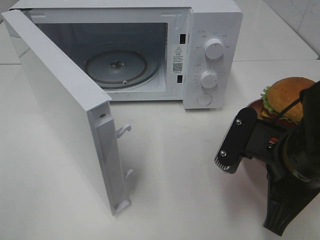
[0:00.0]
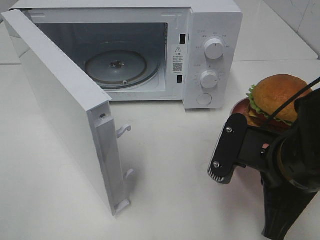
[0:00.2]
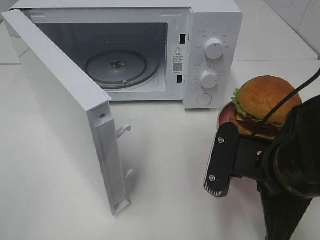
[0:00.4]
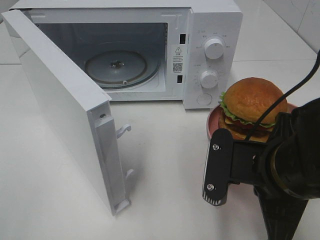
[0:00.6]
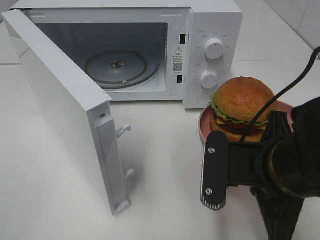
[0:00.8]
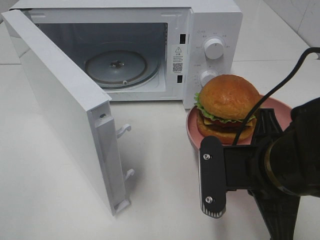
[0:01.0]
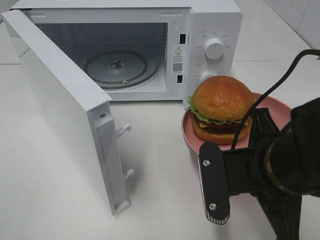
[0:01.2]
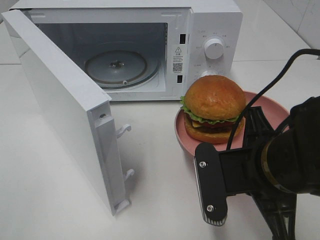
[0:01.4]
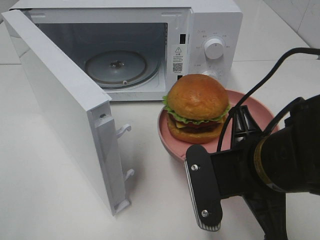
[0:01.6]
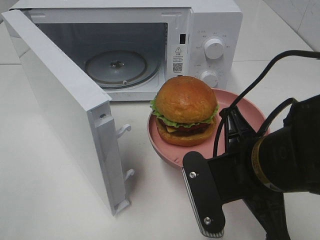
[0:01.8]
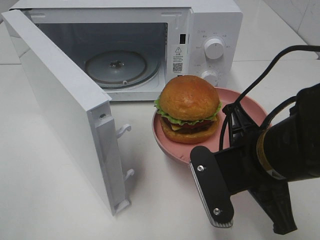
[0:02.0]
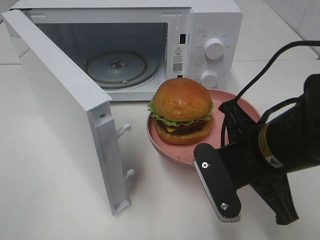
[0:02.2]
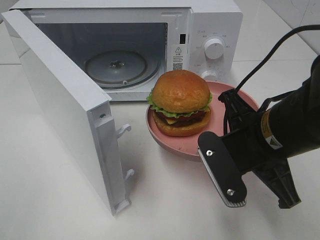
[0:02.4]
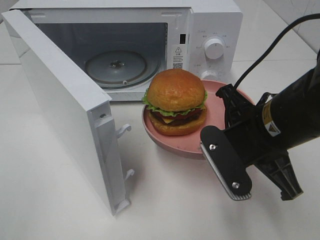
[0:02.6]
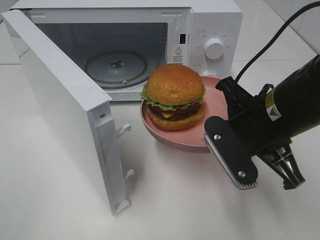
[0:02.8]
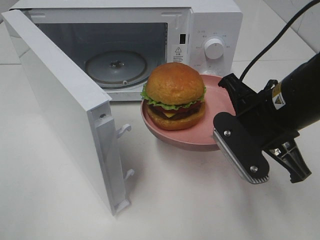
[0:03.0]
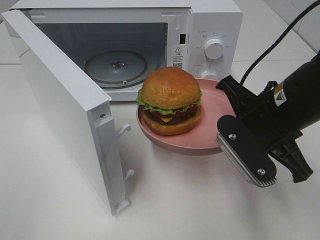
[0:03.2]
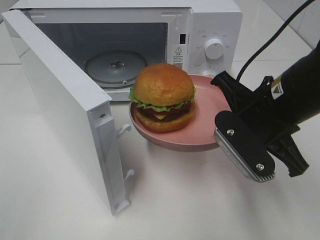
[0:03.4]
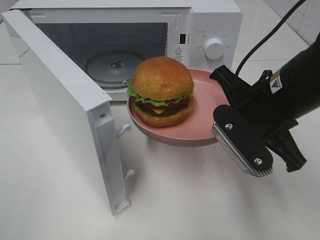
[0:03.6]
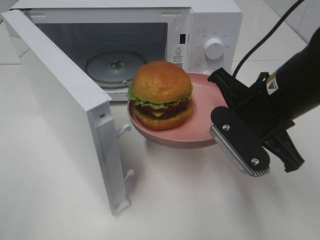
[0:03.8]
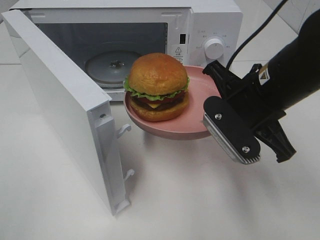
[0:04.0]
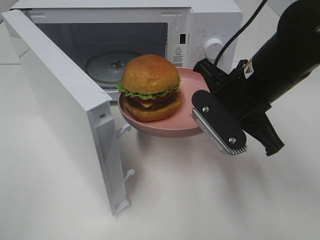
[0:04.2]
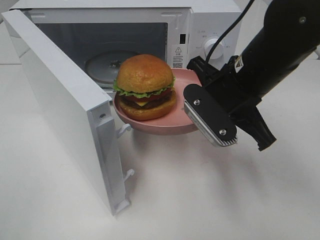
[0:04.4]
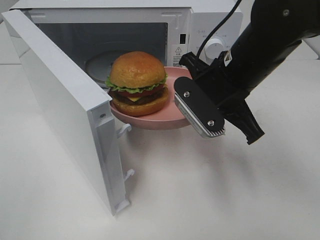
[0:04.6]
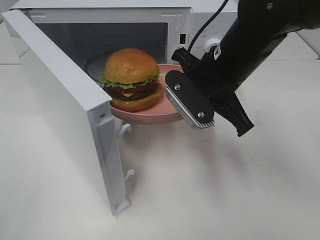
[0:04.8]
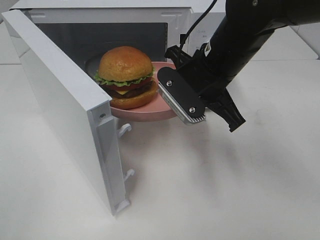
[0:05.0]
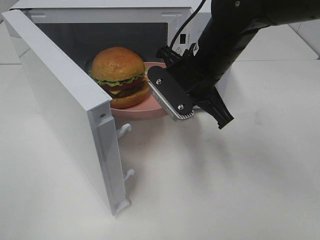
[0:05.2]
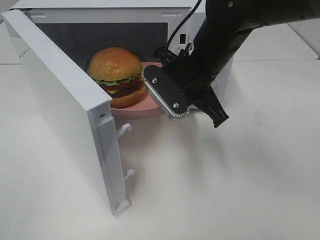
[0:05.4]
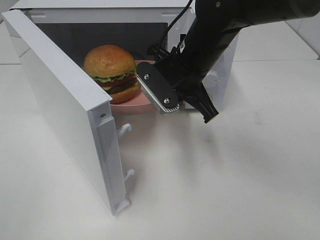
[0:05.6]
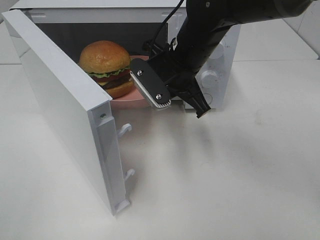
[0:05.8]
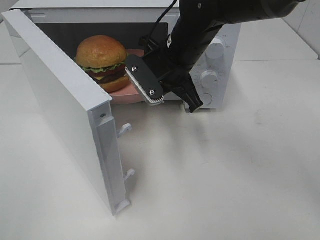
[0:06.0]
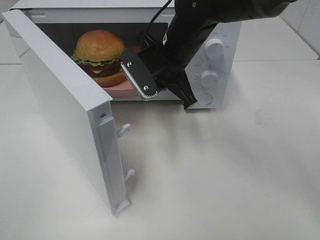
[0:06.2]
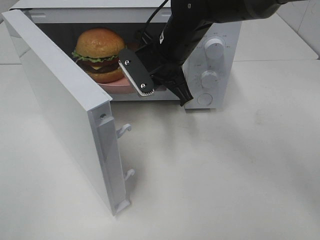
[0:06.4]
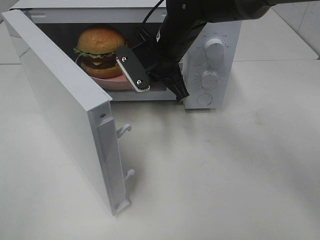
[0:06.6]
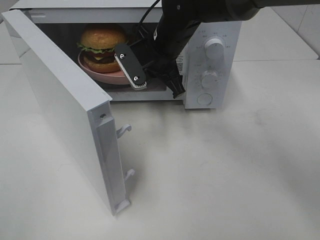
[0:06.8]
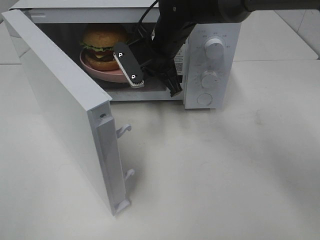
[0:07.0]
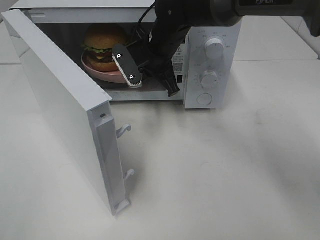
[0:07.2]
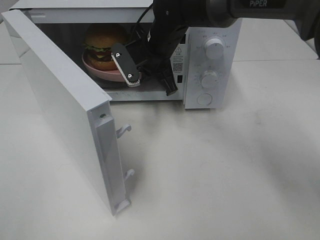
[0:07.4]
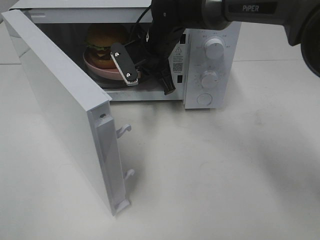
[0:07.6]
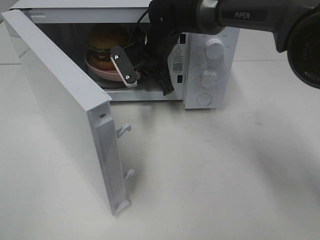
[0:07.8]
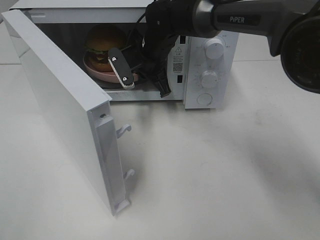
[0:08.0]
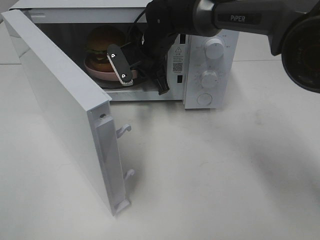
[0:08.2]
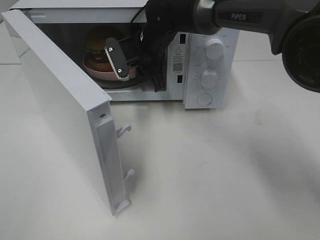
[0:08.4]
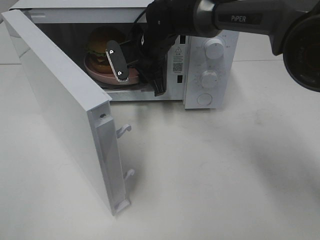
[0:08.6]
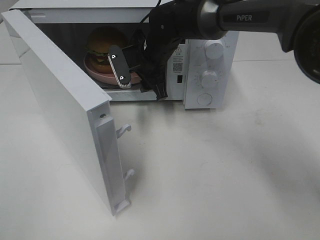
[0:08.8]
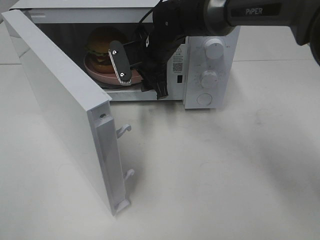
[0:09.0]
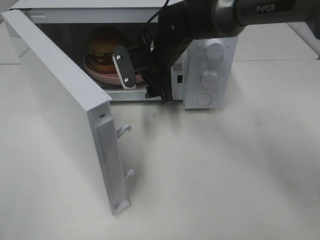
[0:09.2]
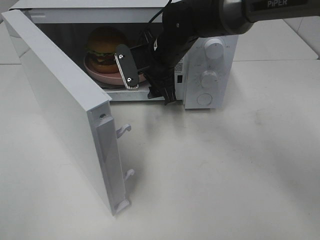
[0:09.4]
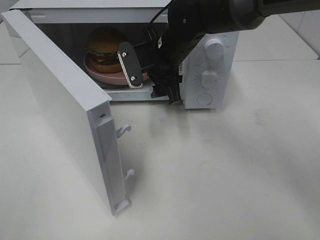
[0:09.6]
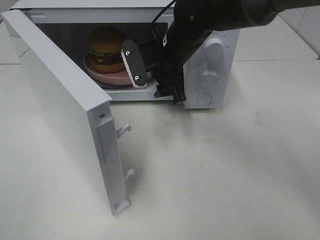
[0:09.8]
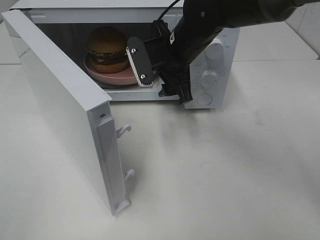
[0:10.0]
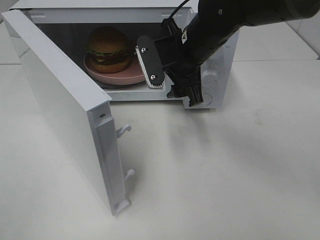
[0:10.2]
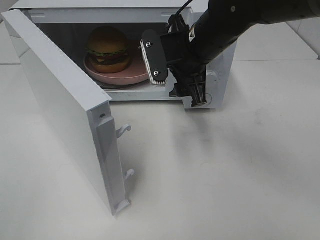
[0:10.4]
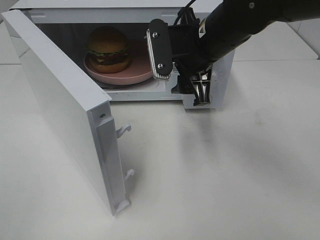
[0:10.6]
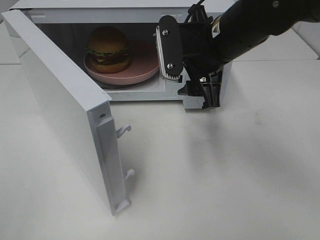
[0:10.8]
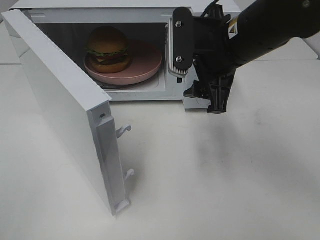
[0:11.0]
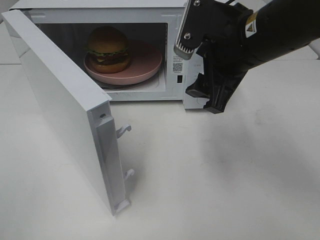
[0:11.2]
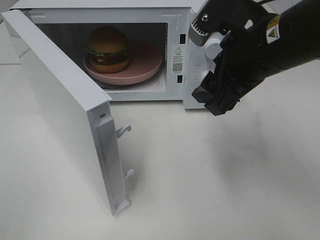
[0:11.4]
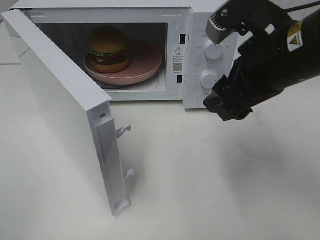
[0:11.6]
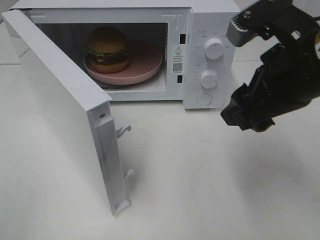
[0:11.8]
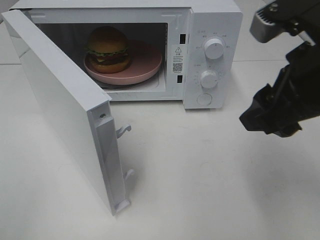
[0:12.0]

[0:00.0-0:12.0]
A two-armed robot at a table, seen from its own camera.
Task of the whole recording: Heat the burger.
Step, 0:00.0 to 0:08.8: Right hand: place the plate in the microwave.
0:01.6 to 0:03.0: The right gripper is displaced forward by some 5 cm.
0:03.0 to 0:04.4: The right gripper shifts by some 5 cm.
0:04.4 to 0:06.0: The right gripper travels forward and to the left by roughly 10 cm.
0:06.0 to 0:07.6: The right gripper heads forward, covering some 10 cm.
0:07.6 to 0:09.0: The right gripper opens.
0:09.0 to 0:10.4: The right gripper is displaced backward, to the right and upward by roughly 10 cm.
0:10.4 to 0:12.0: The right gripper goes about 20 cm backward, to the right and upward.

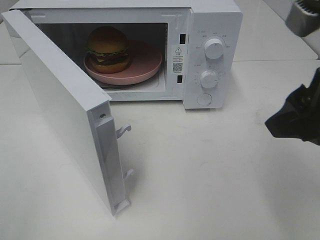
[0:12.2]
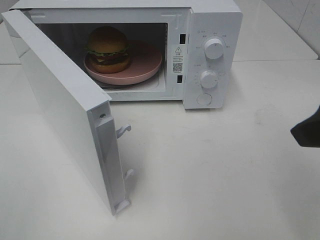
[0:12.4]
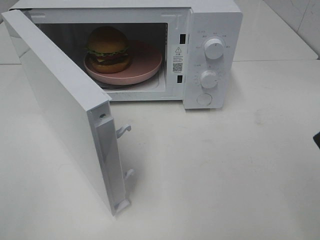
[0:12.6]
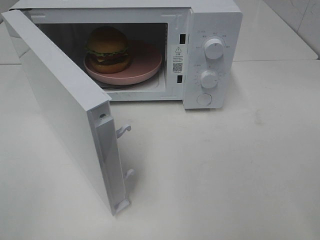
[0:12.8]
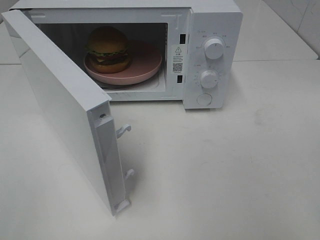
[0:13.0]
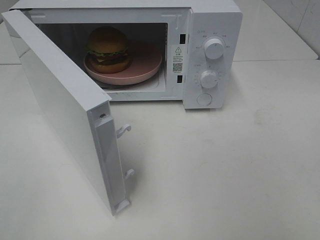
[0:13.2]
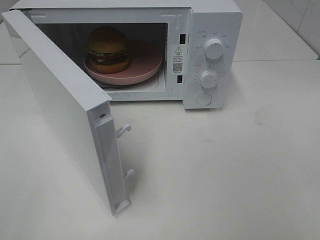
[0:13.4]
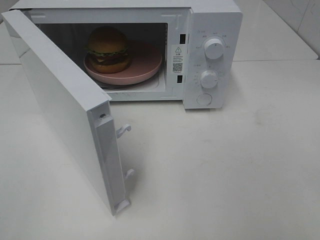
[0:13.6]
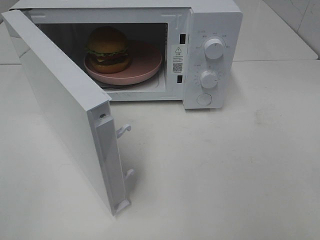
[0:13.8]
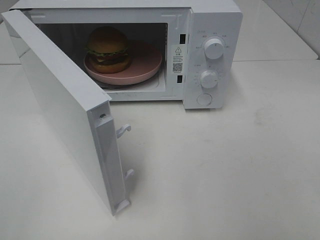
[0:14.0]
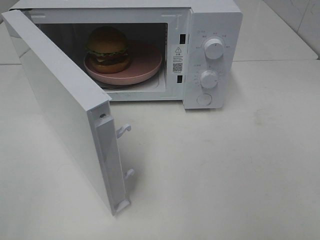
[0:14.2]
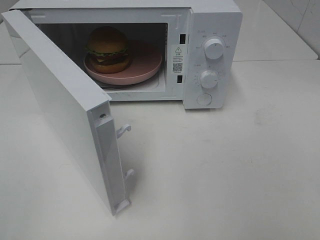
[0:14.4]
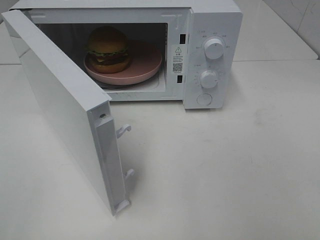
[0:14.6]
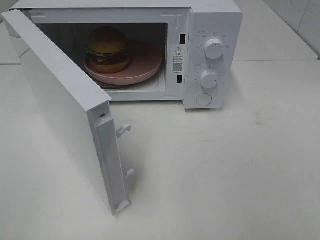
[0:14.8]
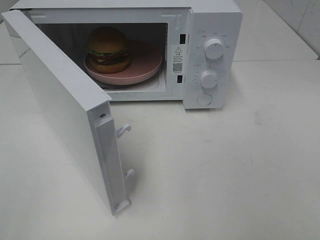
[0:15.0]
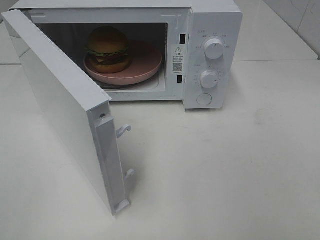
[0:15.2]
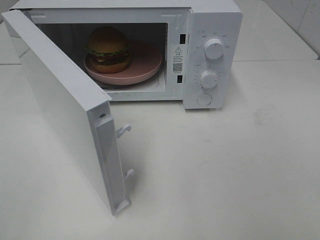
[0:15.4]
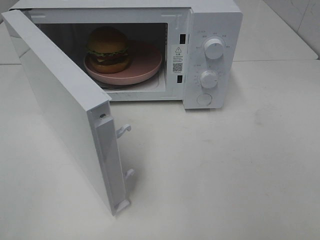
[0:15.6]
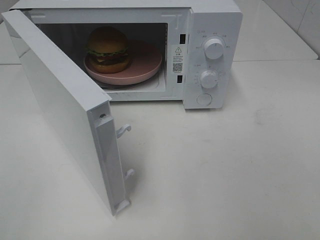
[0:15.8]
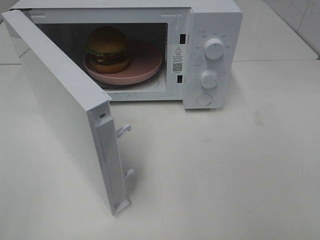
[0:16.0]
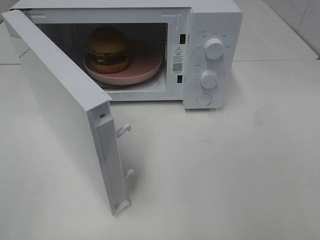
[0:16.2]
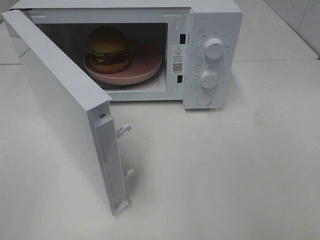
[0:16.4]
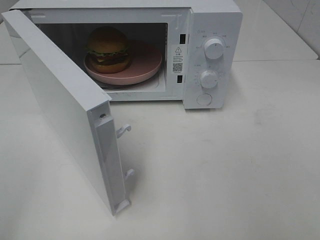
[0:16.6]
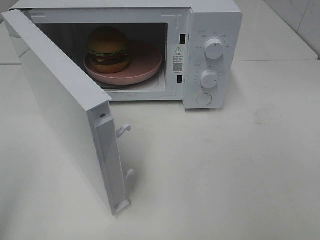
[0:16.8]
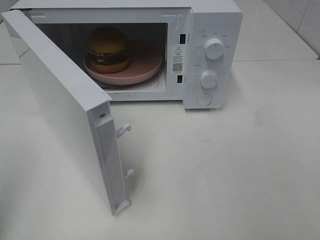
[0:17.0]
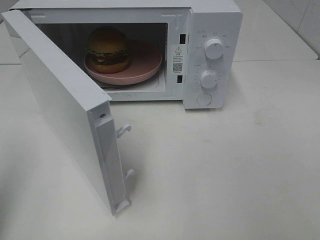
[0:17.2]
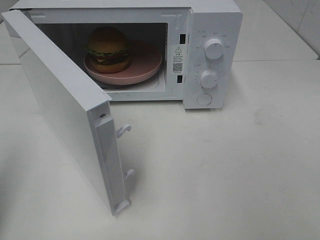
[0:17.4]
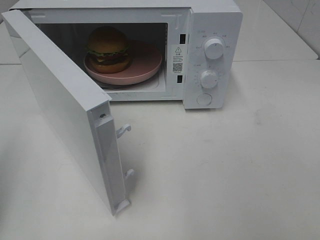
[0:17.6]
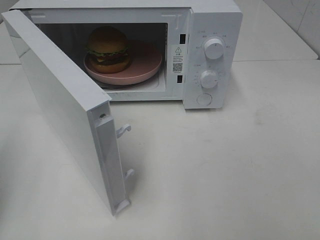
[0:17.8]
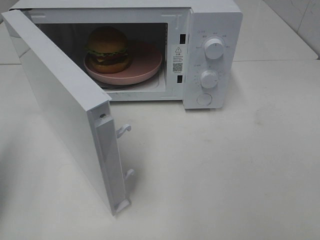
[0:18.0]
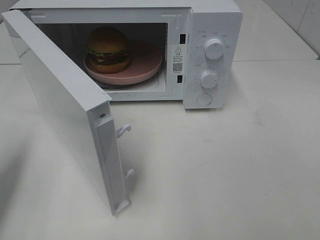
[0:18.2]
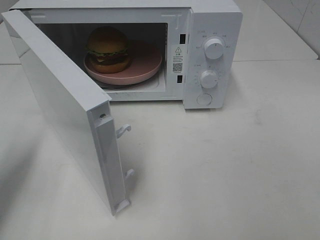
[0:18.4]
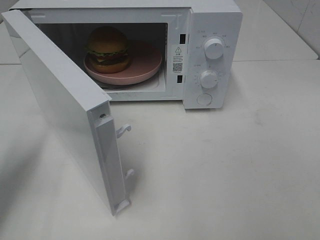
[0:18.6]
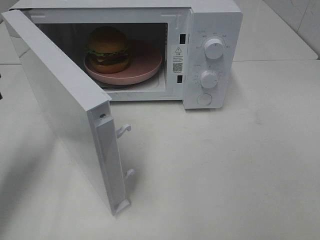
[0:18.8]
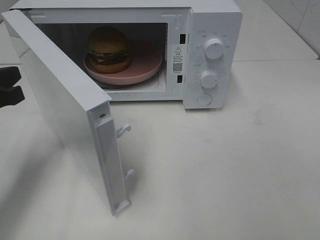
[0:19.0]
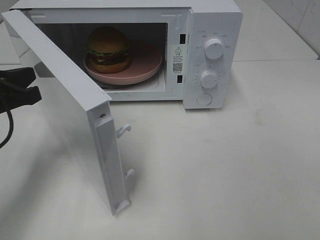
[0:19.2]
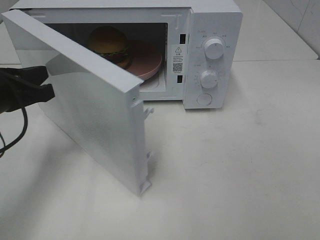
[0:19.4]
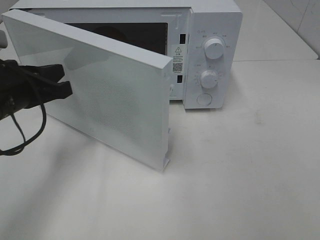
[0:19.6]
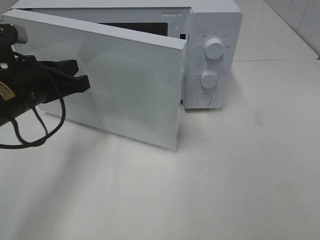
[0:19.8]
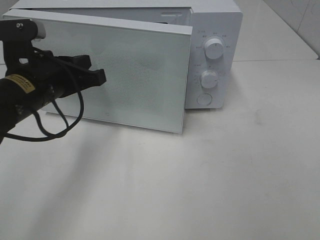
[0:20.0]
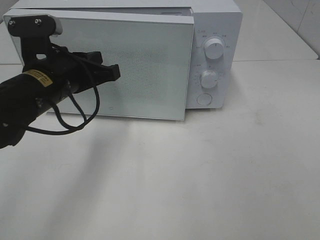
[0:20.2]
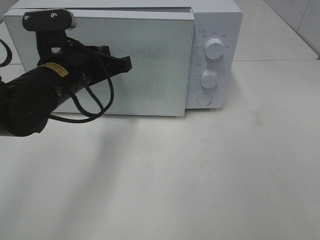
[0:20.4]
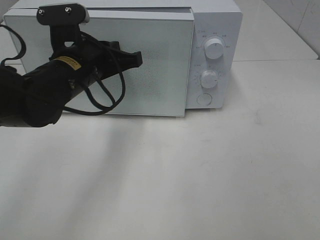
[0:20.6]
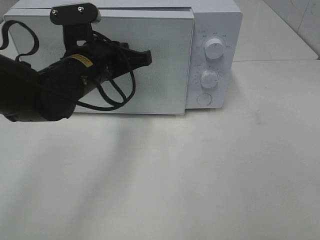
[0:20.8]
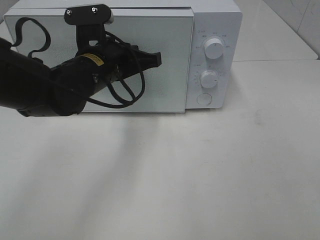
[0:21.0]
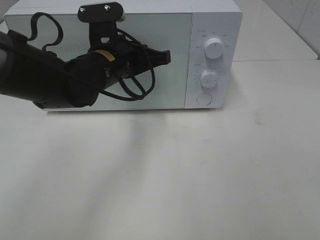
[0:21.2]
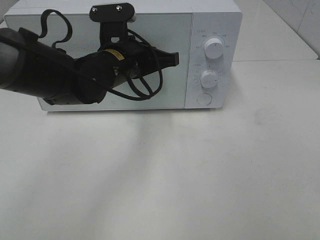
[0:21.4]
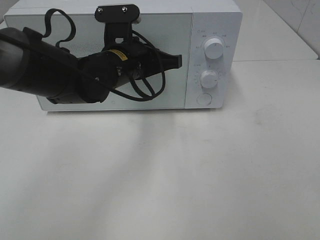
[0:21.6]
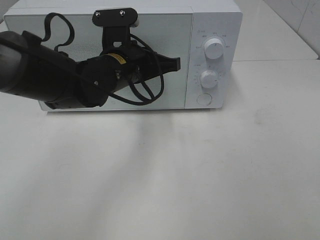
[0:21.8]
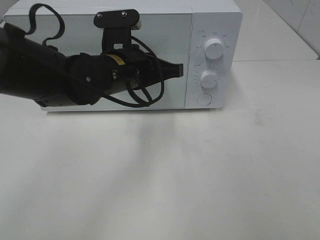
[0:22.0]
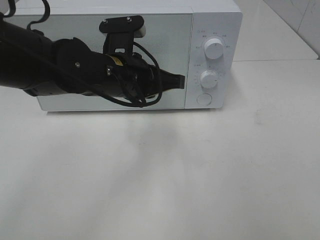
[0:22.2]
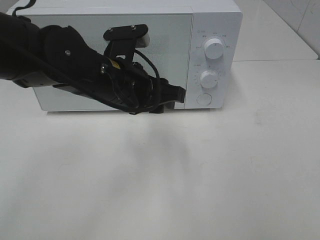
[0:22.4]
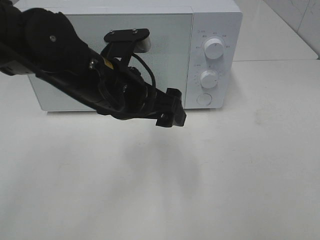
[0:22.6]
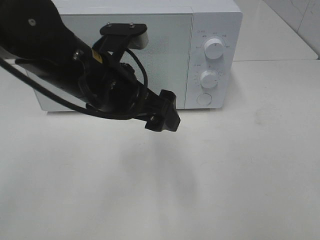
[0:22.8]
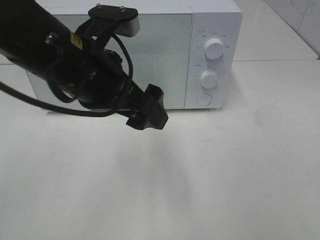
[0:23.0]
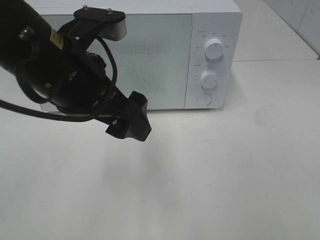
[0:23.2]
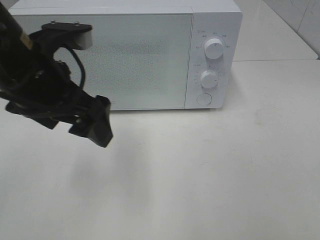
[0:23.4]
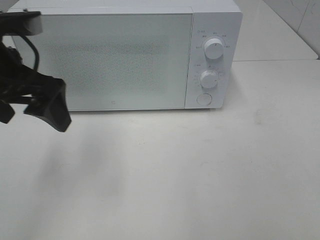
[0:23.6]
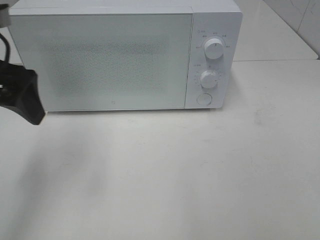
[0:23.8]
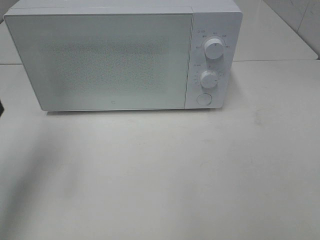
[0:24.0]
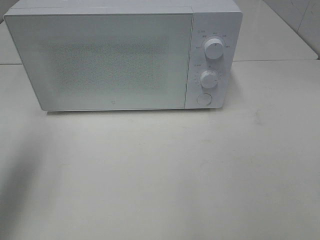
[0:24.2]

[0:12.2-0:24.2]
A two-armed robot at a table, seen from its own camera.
Task of the whole recording: Heat the burger.
Step, 0:12.2 to 0:22.2: Left hand: close the microwave door.
0:12.2 to 0:13.8: The right gripper shifts approximately 15 cm backward and to the right.
0:16.6 to 0:18.2: The left gripper moves forward and downward, about 15 cm, and closes its fingers.
0:18.2 to 0:19.8: The left gripper goes approximately 15 cm to the right and forward.
0:19.8 to 0:21.2: The left gripper is displaced to the right and forward by some 15 cm.
0:21.2 to 0:22.6: The left gripper goes some 10 cm backward, and opens.
0:22.6 to 0:24.2: The left gripper heads to the left, covering roughly 25 cm.
